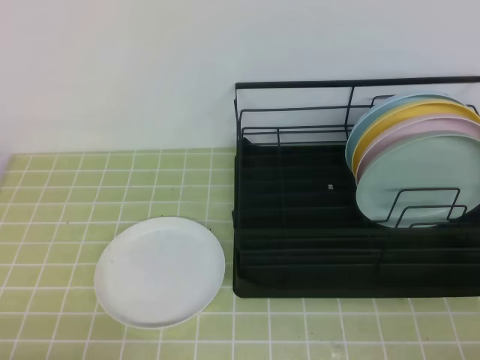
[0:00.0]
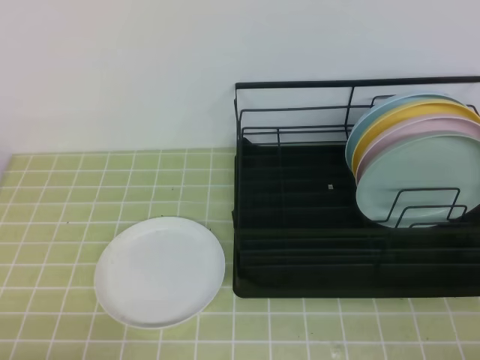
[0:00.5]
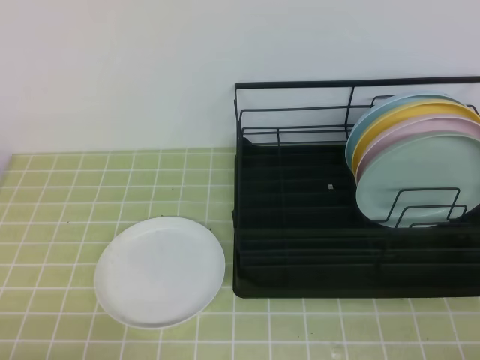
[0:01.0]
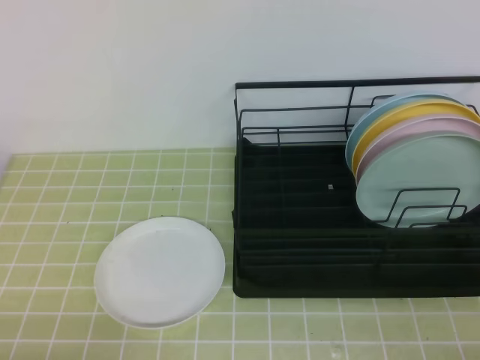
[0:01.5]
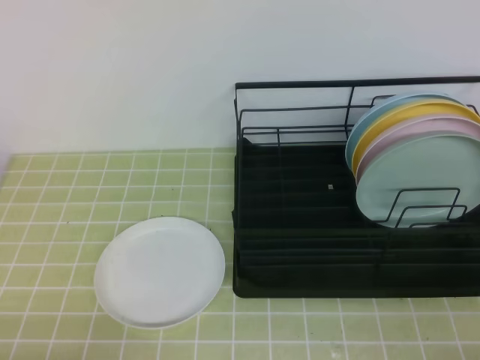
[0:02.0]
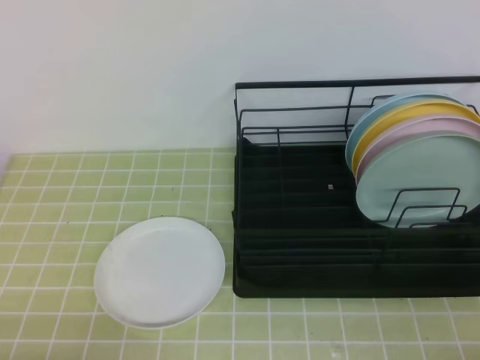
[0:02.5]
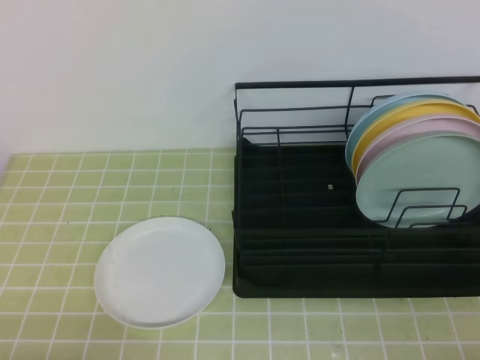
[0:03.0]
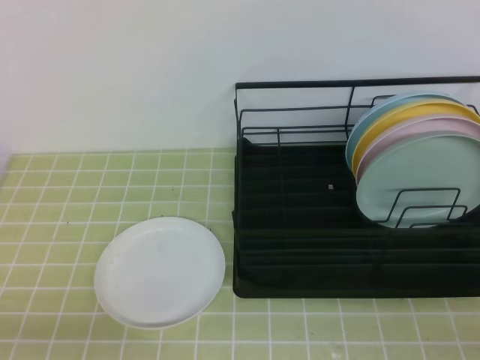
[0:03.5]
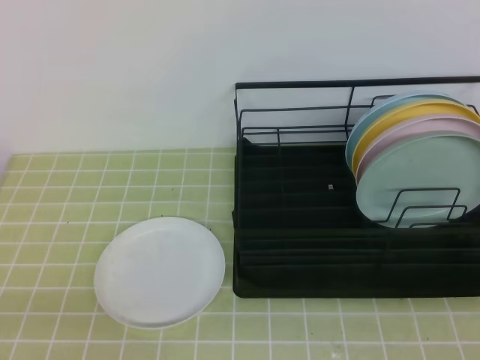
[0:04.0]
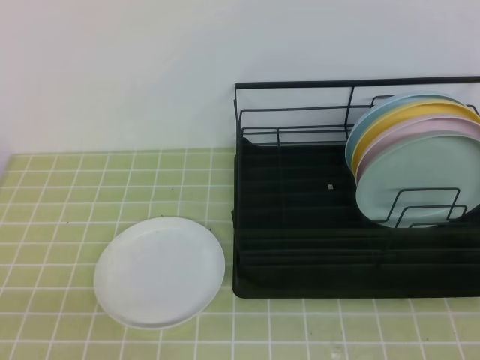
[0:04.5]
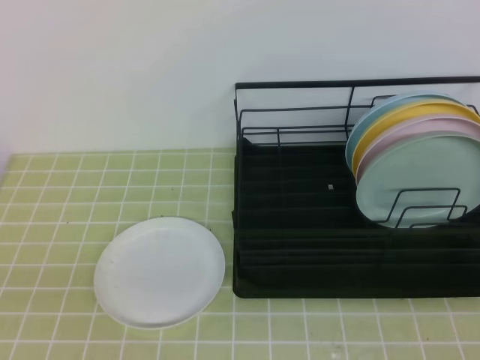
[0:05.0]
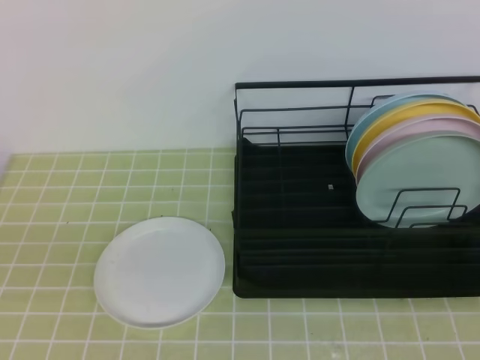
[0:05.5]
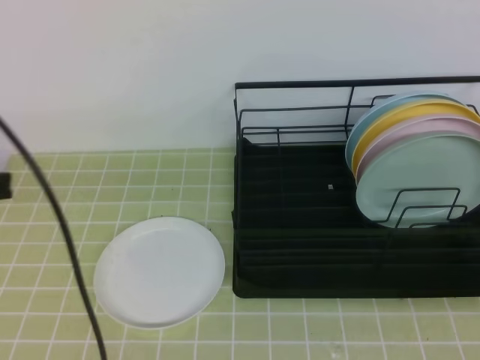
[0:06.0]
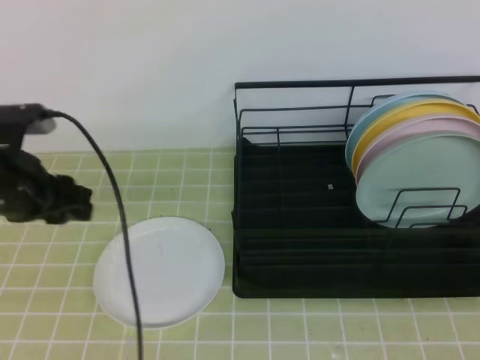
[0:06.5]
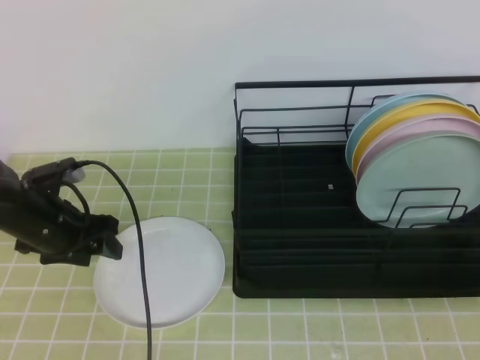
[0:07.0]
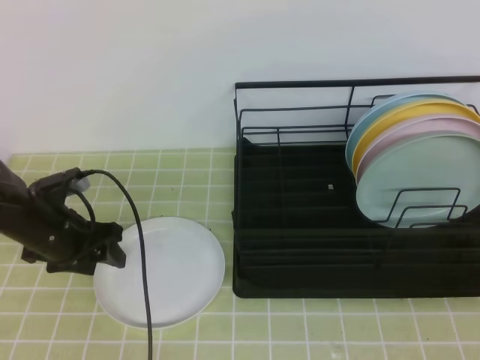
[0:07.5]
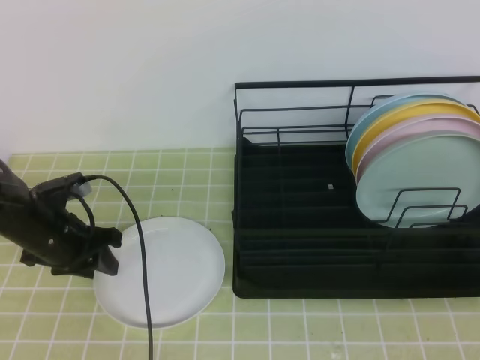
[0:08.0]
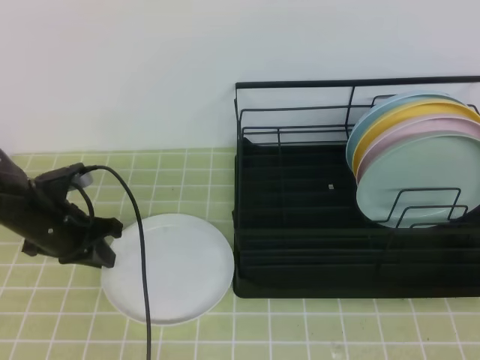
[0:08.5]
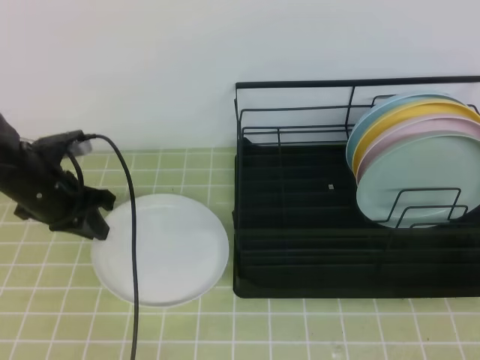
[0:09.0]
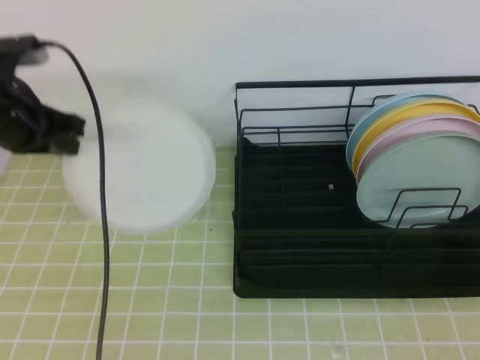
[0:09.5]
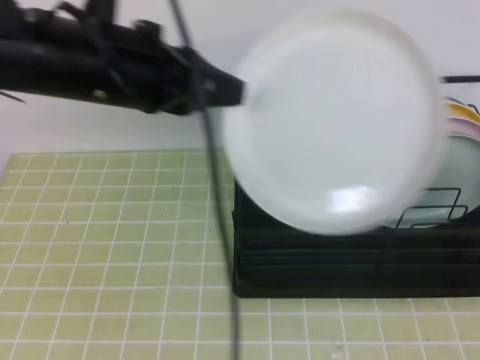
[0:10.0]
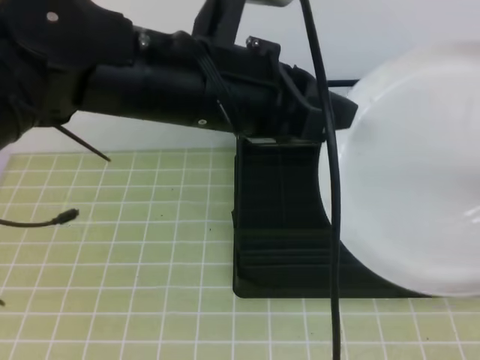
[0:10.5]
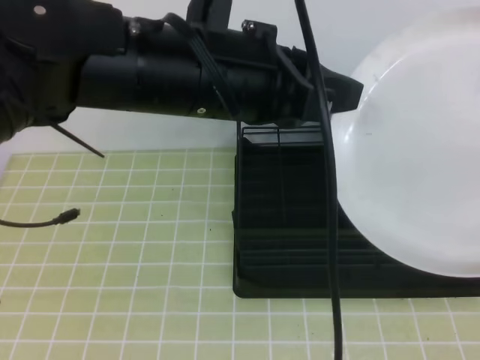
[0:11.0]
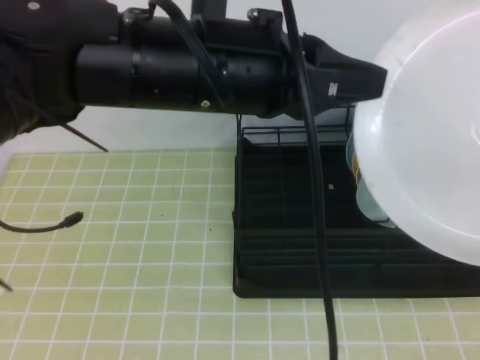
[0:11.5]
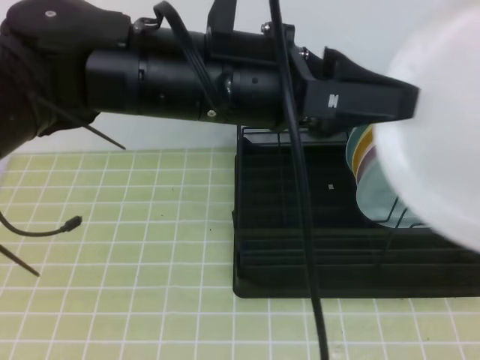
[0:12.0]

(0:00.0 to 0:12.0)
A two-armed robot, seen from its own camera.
0:00.0 - 0:02.0: Neither gripper changes place.
0:04.0 - 0:06.0: The left gripper is displaced forward and upward by approximately 20 cm.
0:06.0 - 0:08.0: The left gripper heads downward and forward, covering approximately 25 cm, and opens.
0:08.0 - 0:10.0: The right gripper shifts approximately 10 cm upward, and opens. The left gripper heads upward and to the right, covering some 25 cm, and closes up.
0:10.0 - 0:12.0: The right gripper opens, then closes once more. The left gripper moves to the right and backward, roughly 10 cm, and opens.

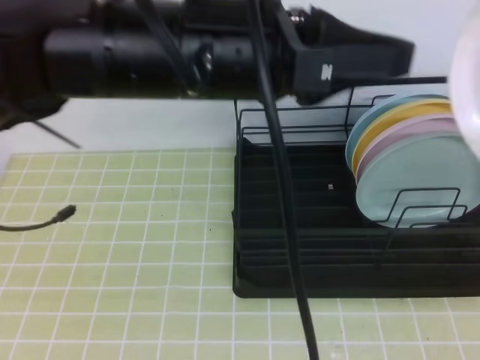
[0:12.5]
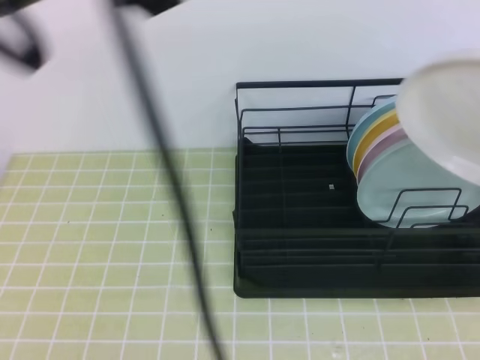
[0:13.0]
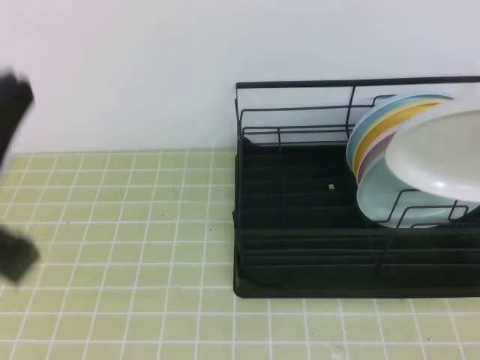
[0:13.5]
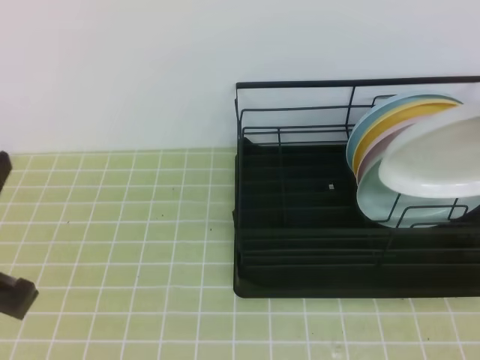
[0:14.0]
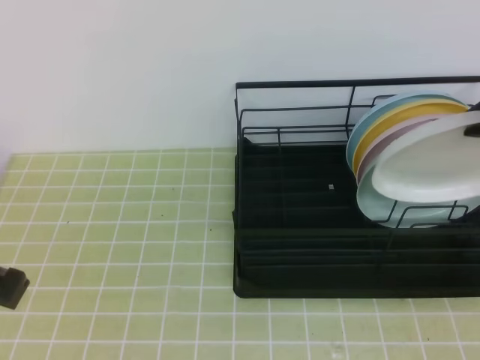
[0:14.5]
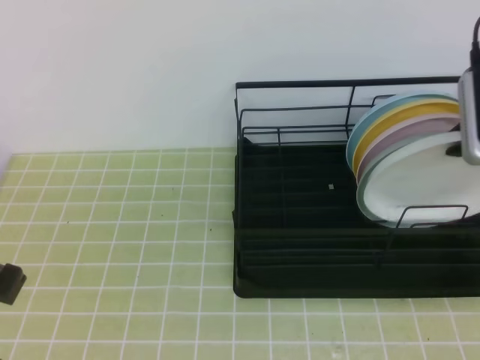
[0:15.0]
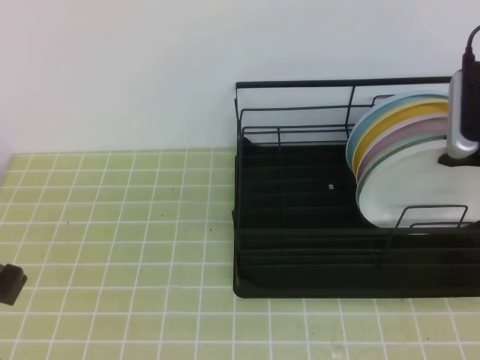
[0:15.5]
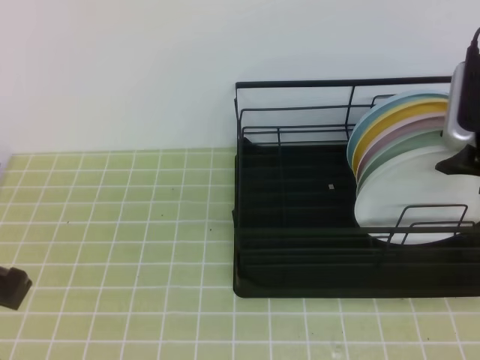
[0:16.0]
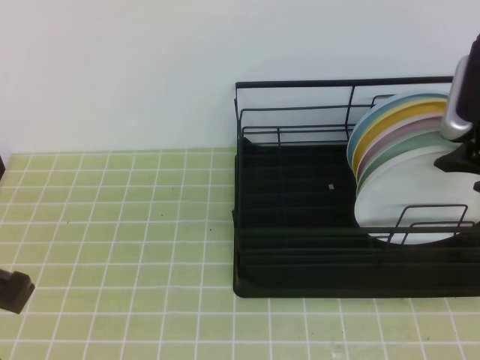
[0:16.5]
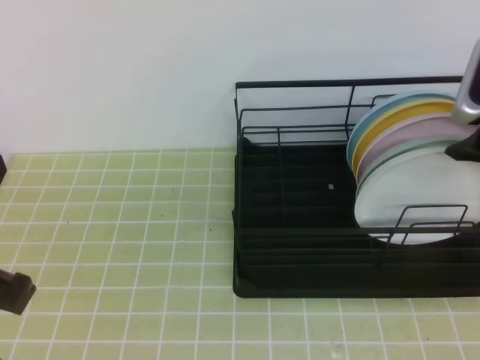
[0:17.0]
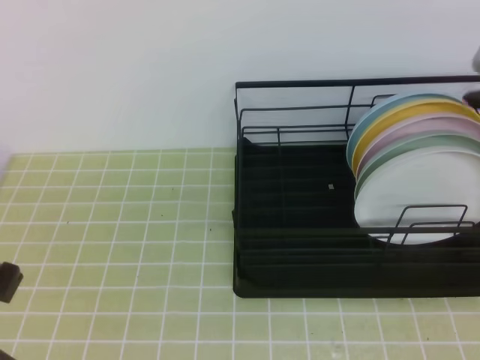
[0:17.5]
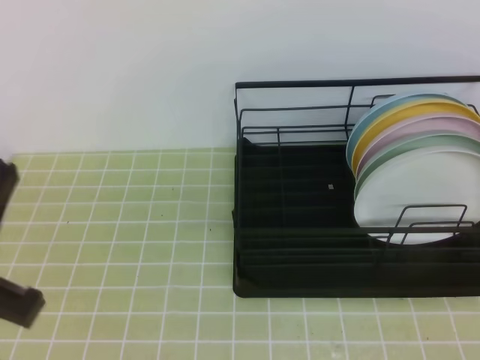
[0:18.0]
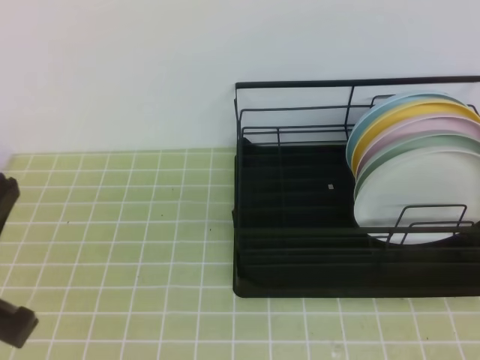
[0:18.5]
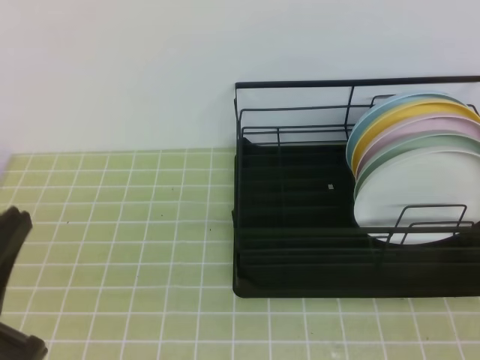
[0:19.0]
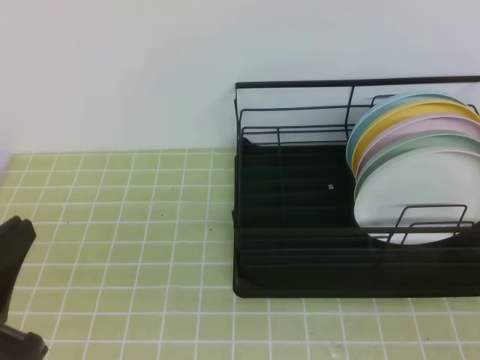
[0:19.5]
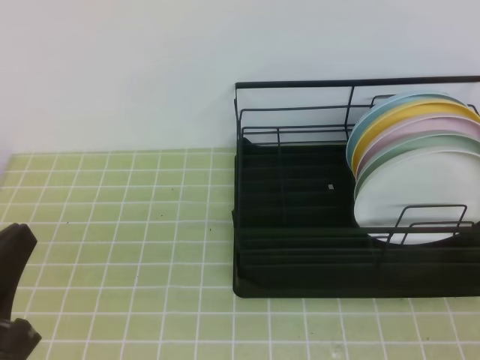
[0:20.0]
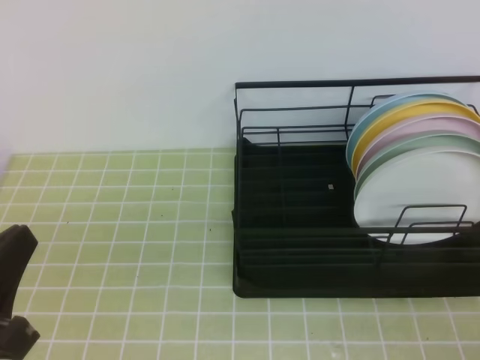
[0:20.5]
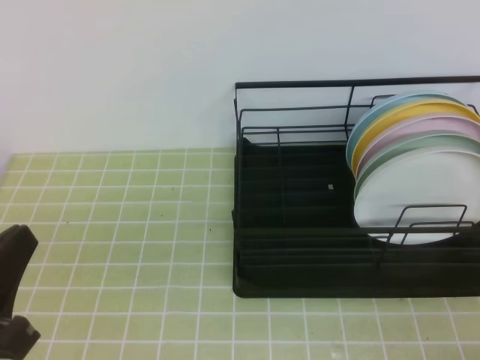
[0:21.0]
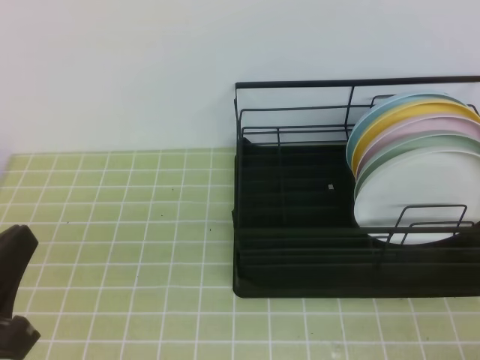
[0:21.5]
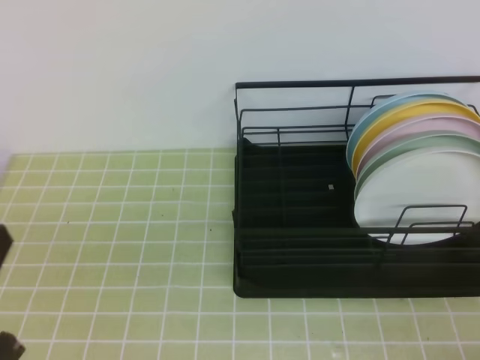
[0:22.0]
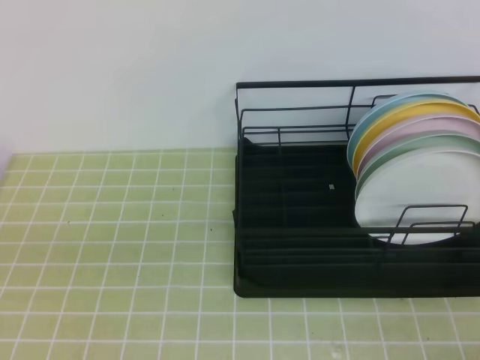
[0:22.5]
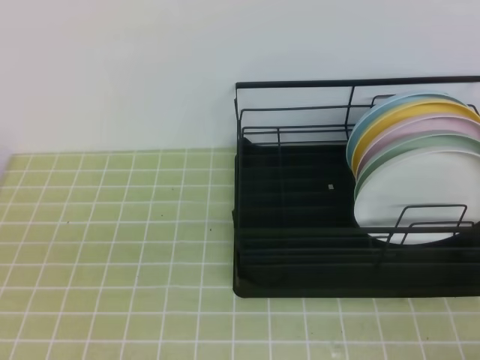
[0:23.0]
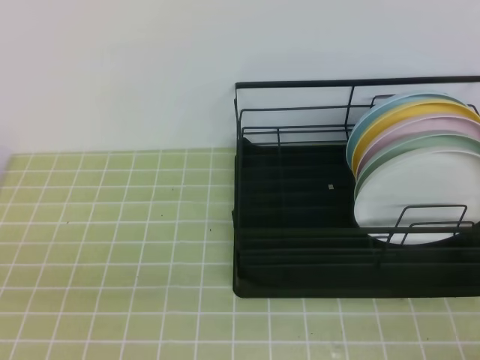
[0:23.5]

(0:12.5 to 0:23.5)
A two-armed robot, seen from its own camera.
0:12.5 - 0:14.5: The left gripper heads to the left, backward and downward, covering roughly 25 cm, and closes, while the right gripper shifts approximately 20 cm forward.
0:14.5 - 0:16.0: The right gripper travels downward by roughly 5 cm, and opens up.
0:16.0 - 0:18.0: The right gripper heads upward and backward, covering about 20 cm, and closes.
0:21.5 - 0:23.5: The left gripper shifts by some 5 cm.

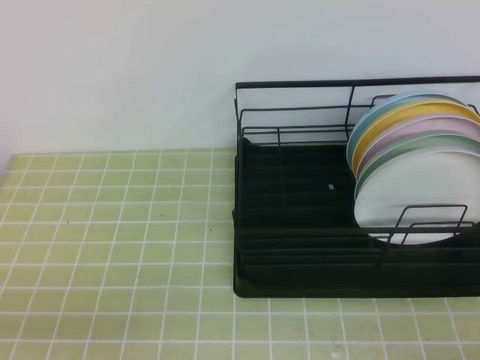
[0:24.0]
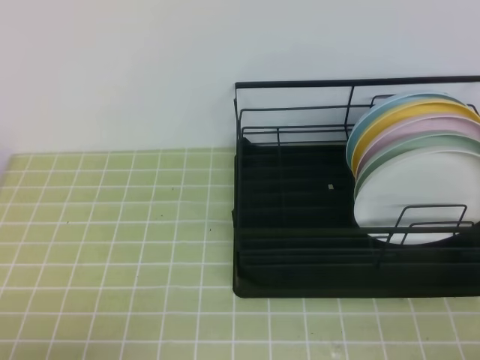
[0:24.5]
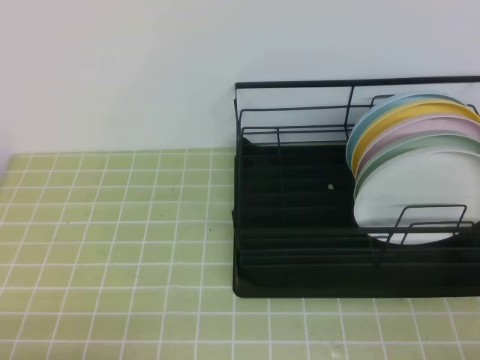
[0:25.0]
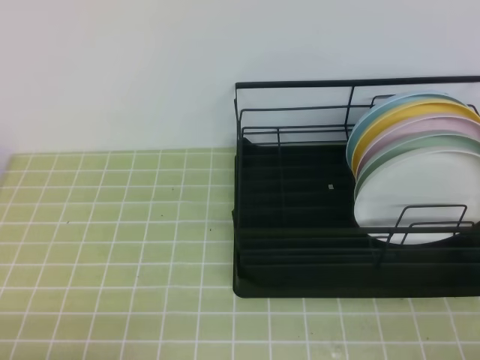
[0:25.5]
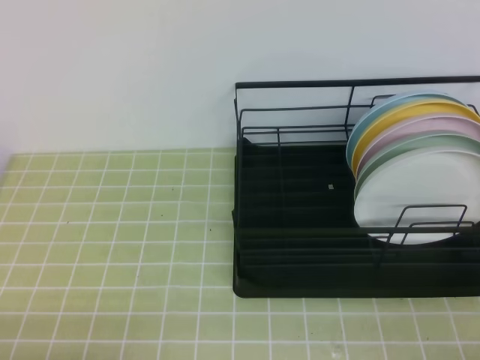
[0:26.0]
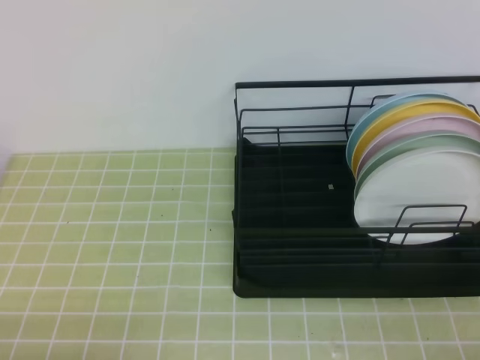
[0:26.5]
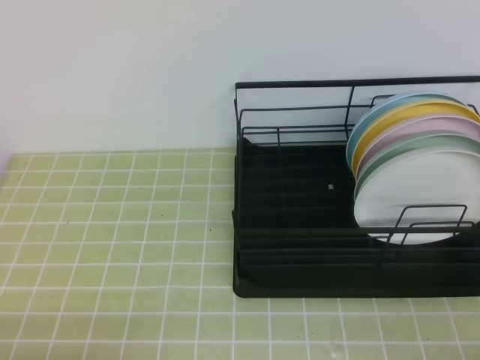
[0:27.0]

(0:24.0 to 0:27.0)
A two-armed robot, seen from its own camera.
0:25.5 - 0:27.0: Both grippers stay put.
